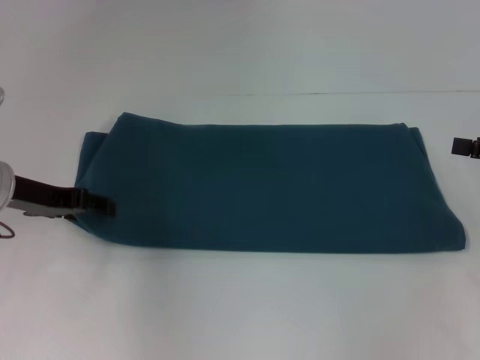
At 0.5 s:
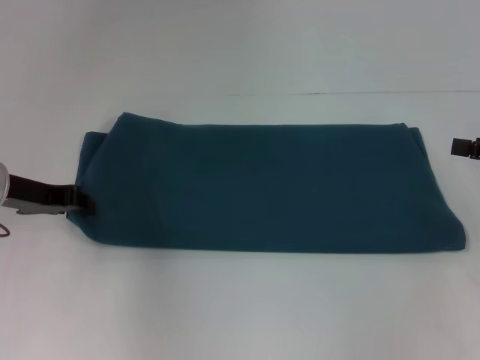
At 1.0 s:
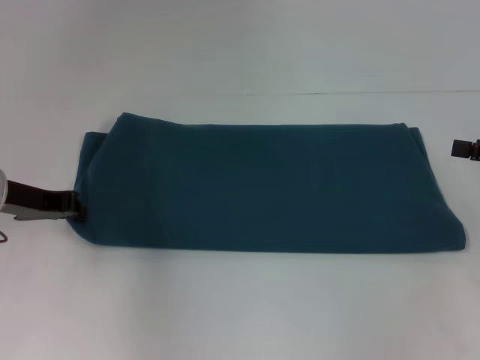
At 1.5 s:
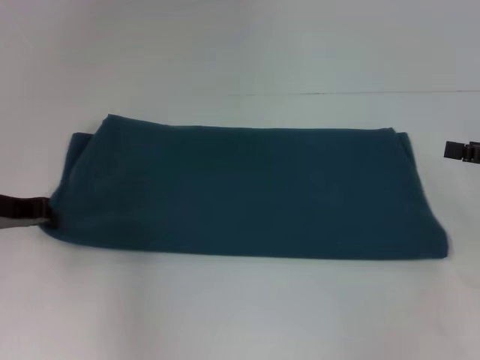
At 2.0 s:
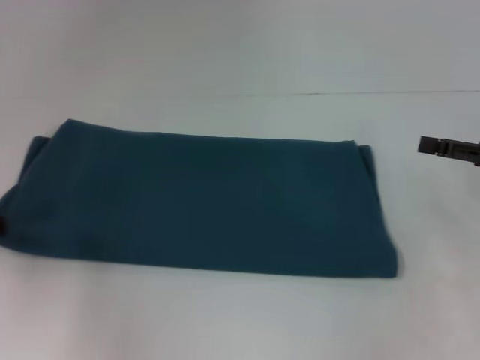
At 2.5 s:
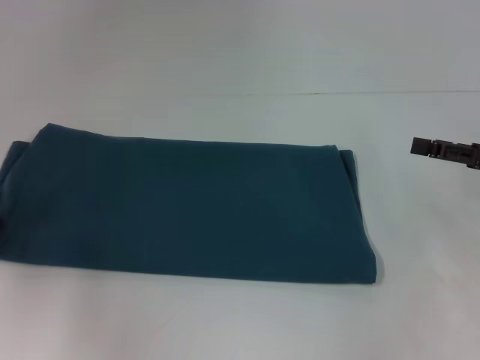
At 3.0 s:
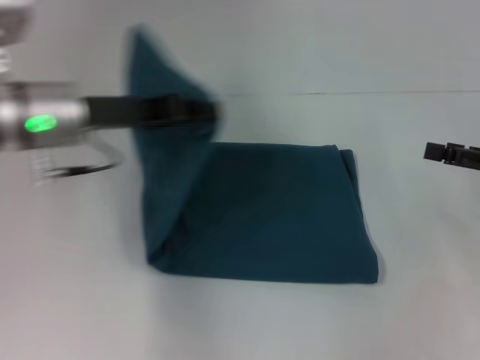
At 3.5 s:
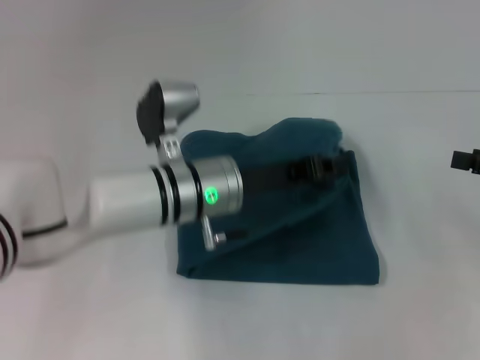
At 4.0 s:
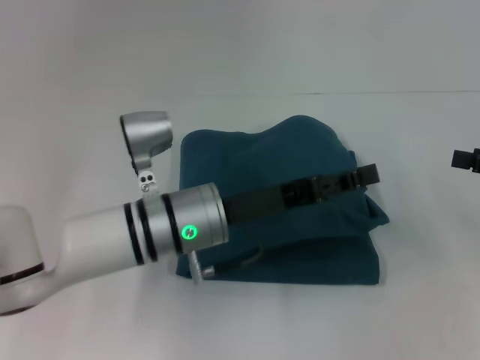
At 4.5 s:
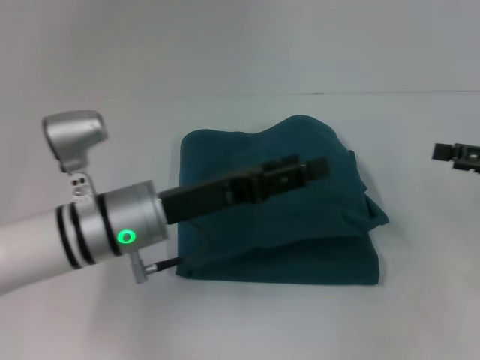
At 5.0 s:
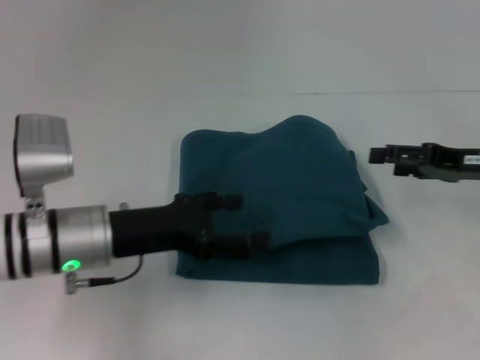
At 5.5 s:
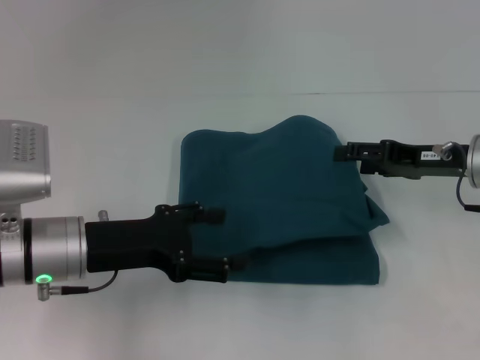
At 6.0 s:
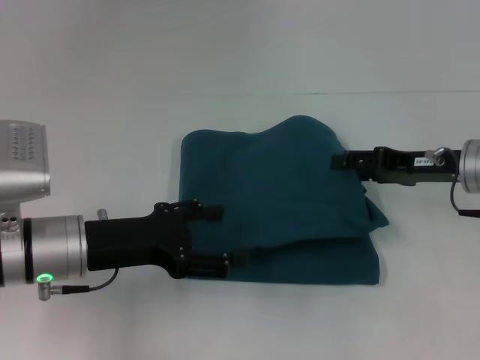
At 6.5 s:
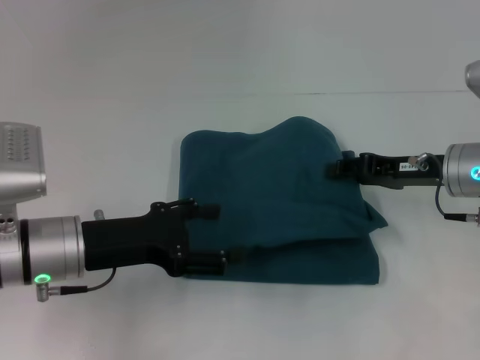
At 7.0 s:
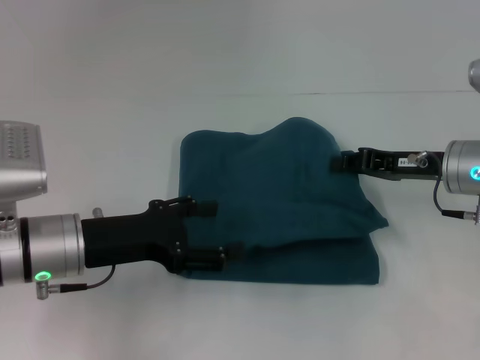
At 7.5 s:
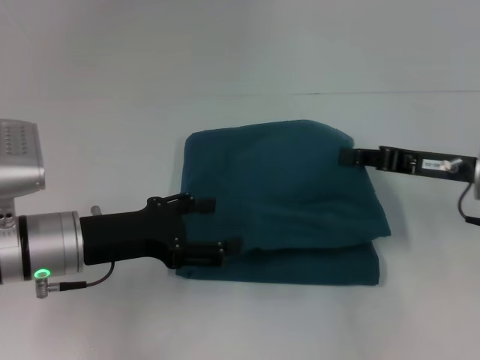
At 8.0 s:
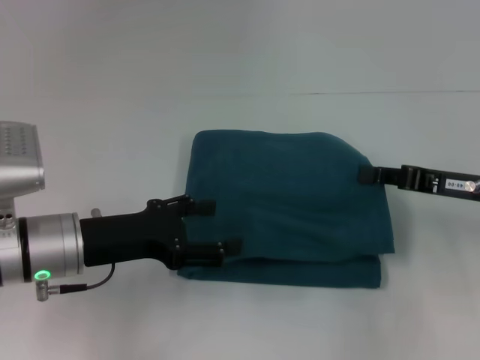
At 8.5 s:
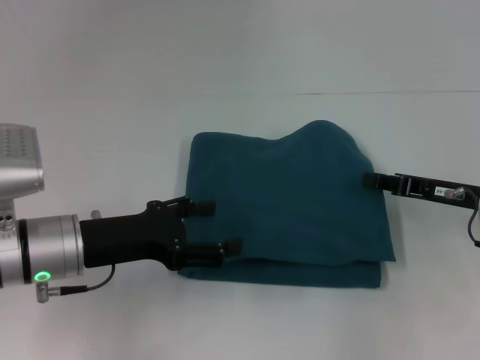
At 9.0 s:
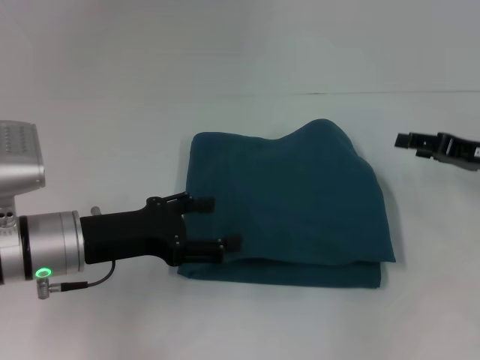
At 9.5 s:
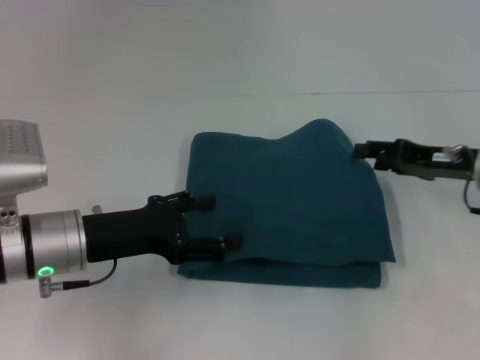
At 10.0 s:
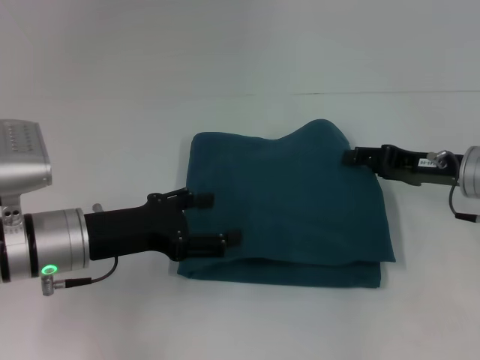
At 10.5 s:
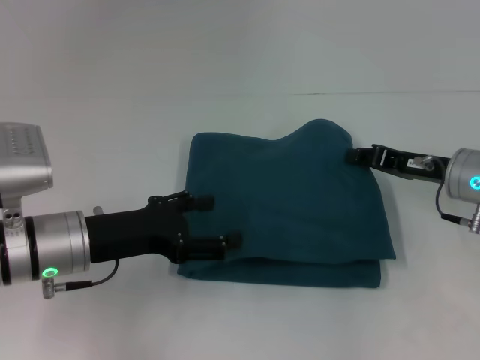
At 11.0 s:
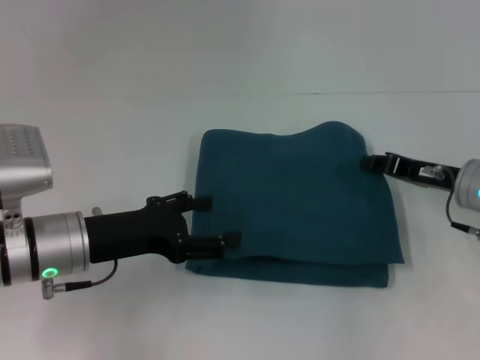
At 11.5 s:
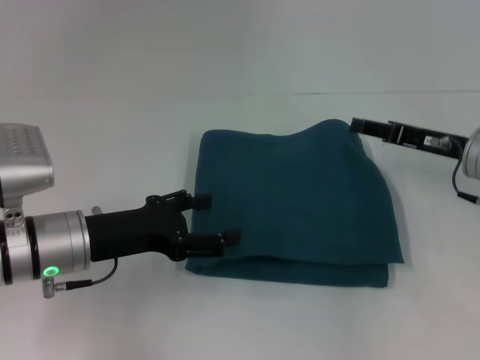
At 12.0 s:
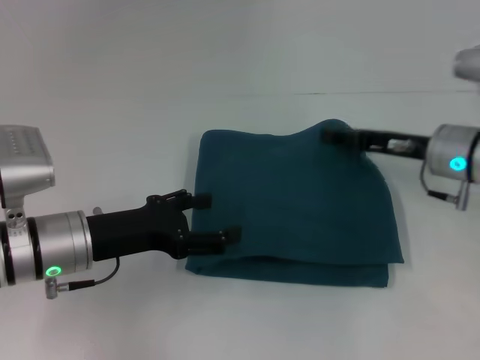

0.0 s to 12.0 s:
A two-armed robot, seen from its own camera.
Step, 0.0 to 3.5 s: Fold the clothes to the left.
0.0 to 2.0 s: The left gripper is displaced to the left by some 10 cm, and closes.
2.0 to 4.0 s: The left gripper goes approximately 30 cm to the right.
4.0 to 6.0 s: The left gripper moves to the left, about 10 cm, and opens up. Meanwhile the right gripper heads to the left and forward, covering roughly 15 cm.
6.0 to 8.0 s: The right gripper changes place by roughly 5 cm, and closes its fingers.
8.0 to 10.0 s: The right gripper opens its fingers.
10.0 to 12.0 s: The right gripper closes, then opens again.

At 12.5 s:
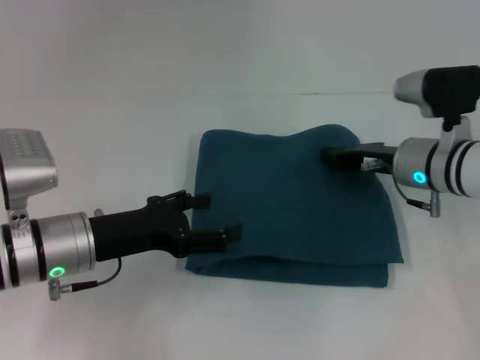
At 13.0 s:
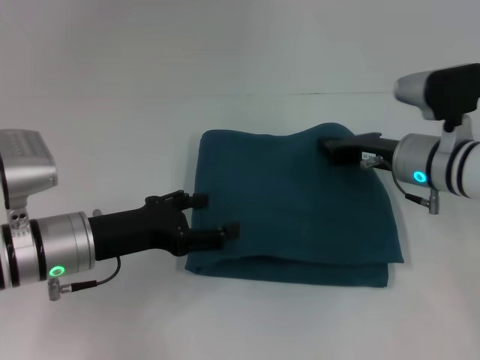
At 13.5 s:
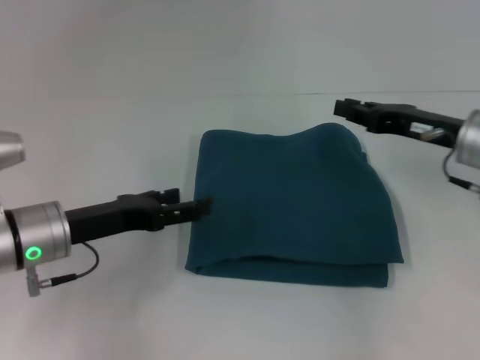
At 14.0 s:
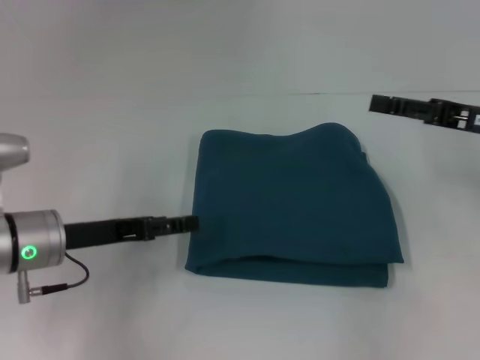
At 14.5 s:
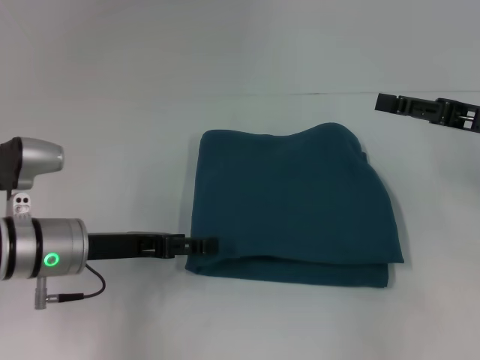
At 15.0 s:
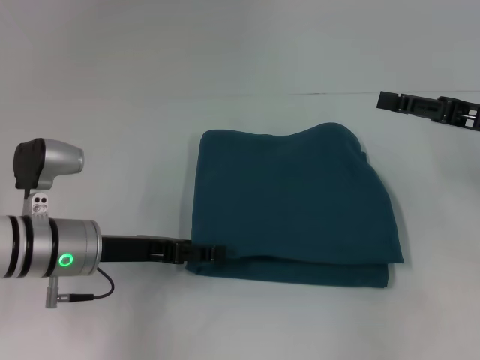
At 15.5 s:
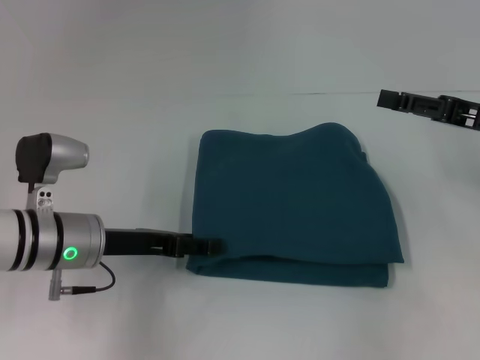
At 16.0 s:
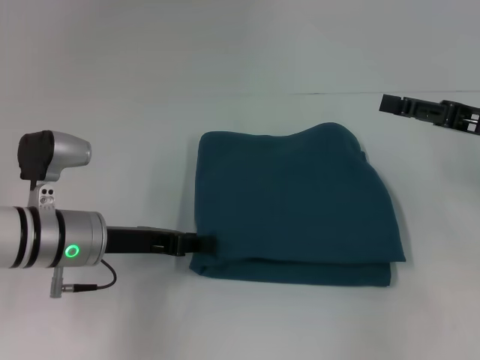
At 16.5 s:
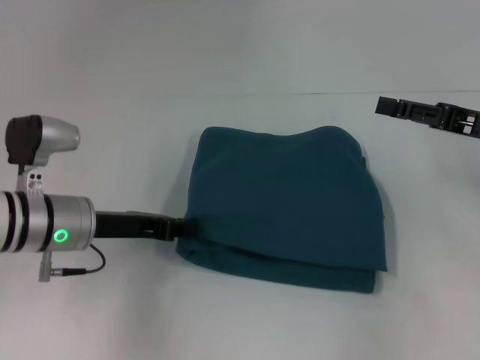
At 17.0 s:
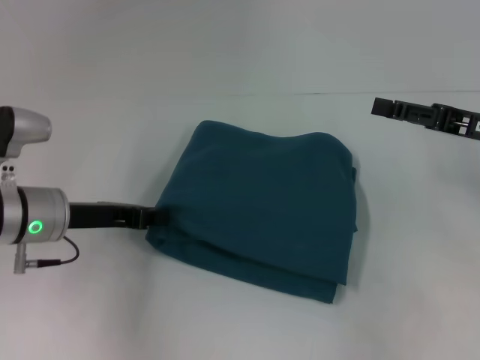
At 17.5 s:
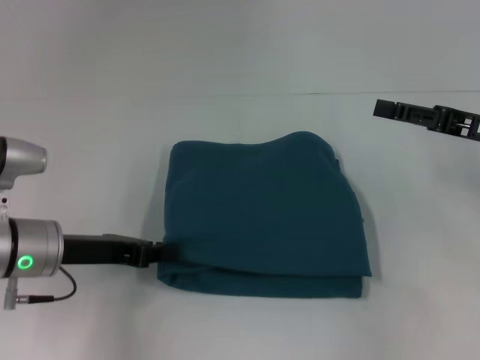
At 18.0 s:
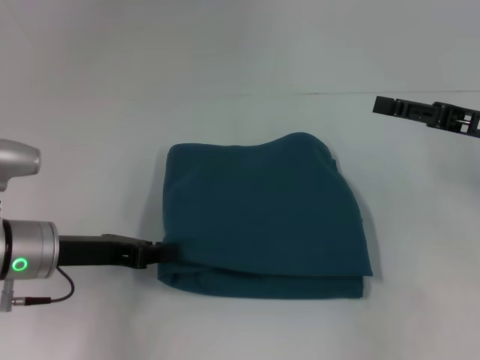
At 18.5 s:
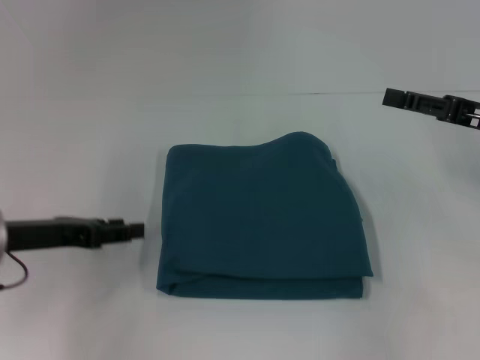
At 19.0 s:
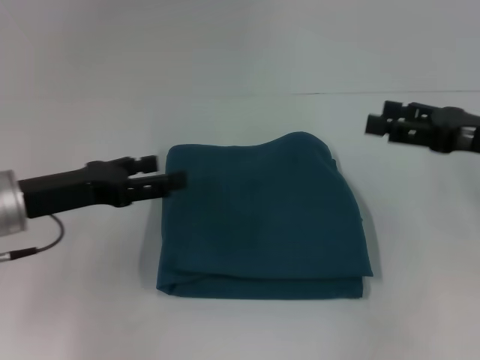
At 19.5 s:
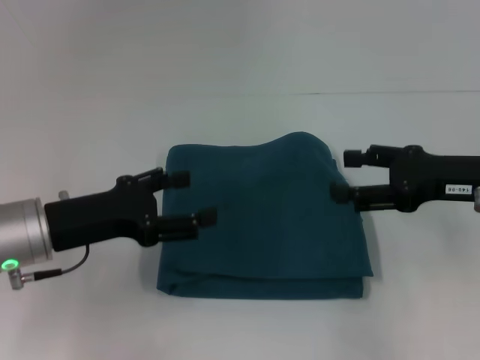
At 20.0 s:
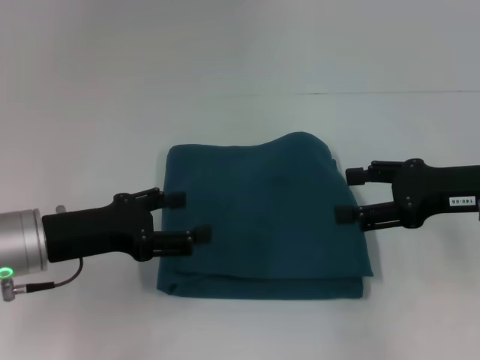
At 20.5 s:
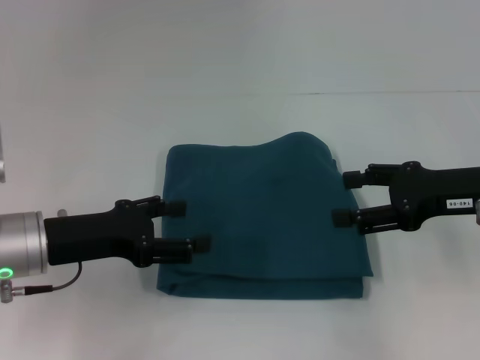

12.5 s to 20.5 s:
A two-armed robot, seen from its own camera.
12.5 to 14.5 s: The right gripper is displaced to the right and upward by approximately 15 cm, and opens up.
14.5 to 16.5 s: The left gripper closes.
16.5 to 18.5 s: The left gripper moves to the left, roughly 5 cm.
18.5 to 20.5 s: The left gripper opens; the right gripper shifts by about 5 cm.

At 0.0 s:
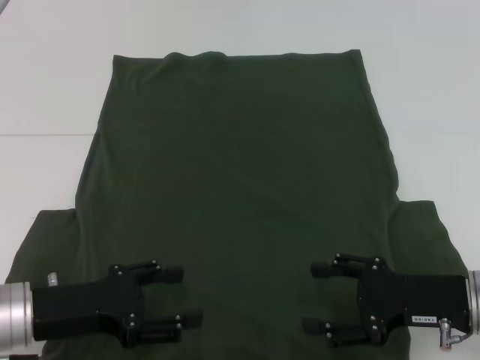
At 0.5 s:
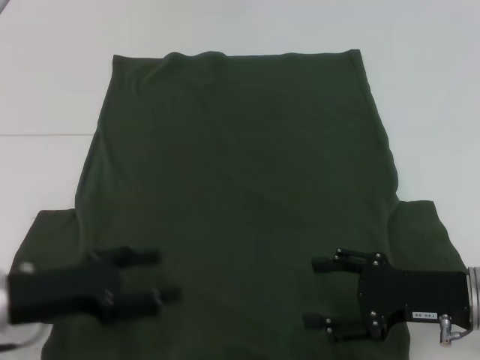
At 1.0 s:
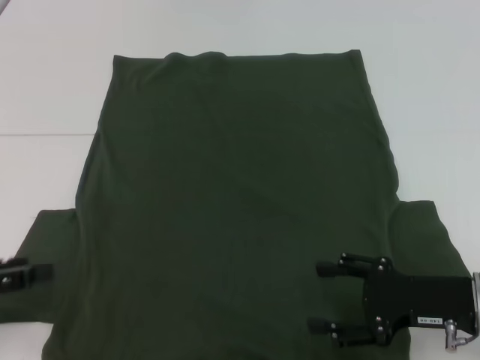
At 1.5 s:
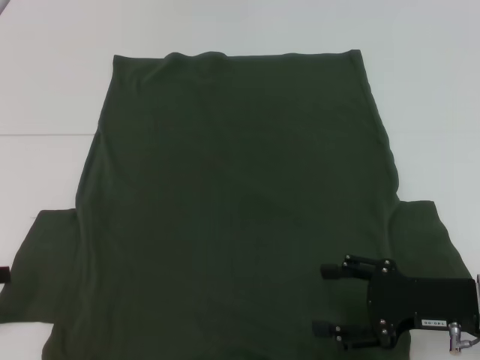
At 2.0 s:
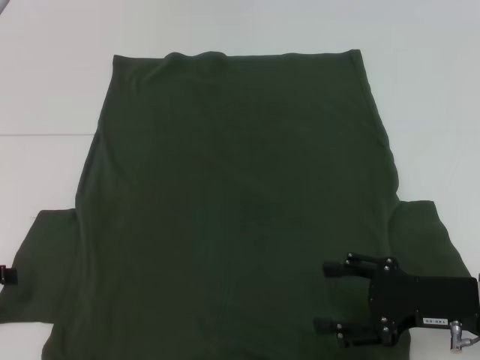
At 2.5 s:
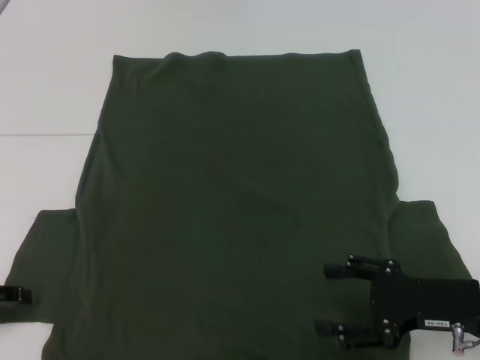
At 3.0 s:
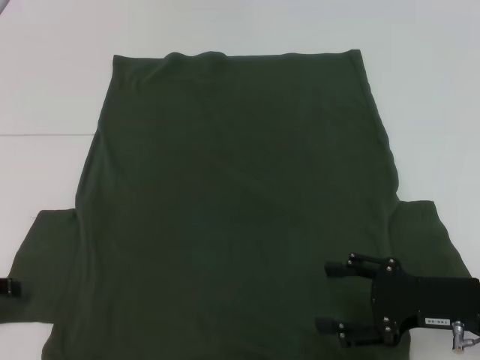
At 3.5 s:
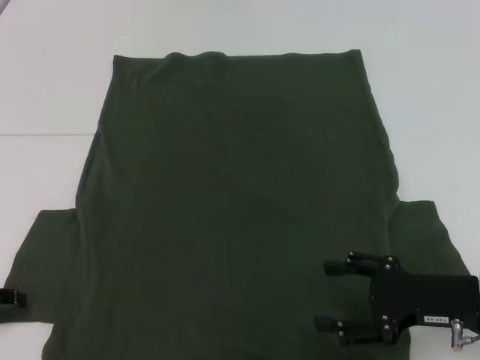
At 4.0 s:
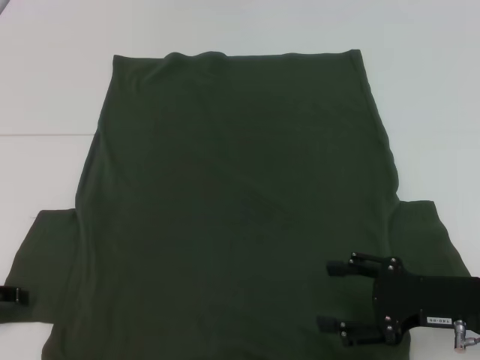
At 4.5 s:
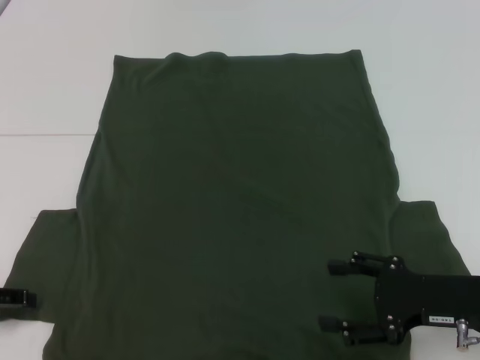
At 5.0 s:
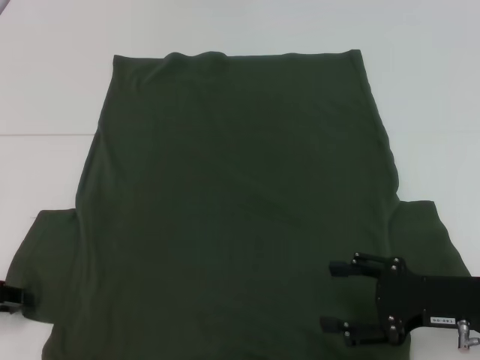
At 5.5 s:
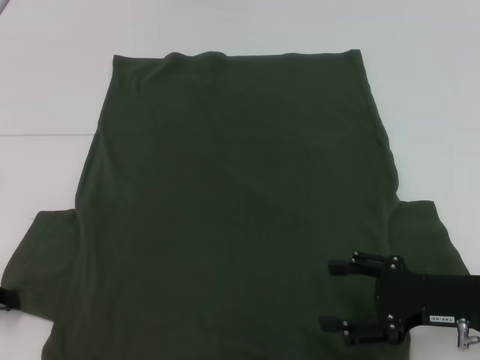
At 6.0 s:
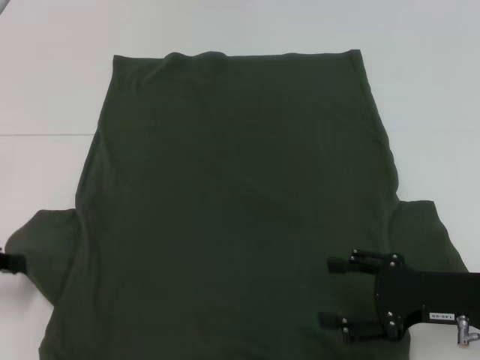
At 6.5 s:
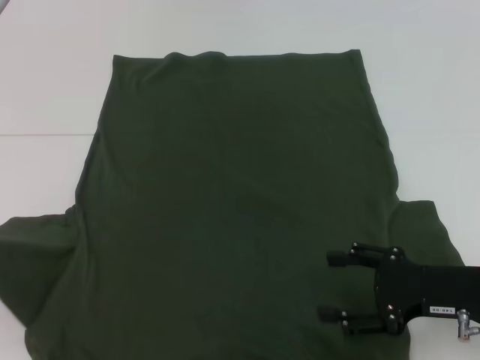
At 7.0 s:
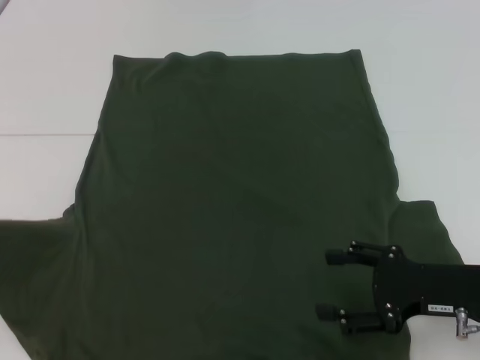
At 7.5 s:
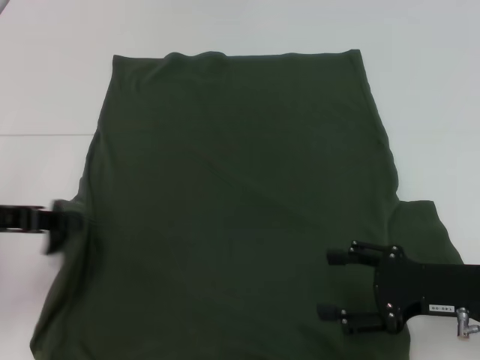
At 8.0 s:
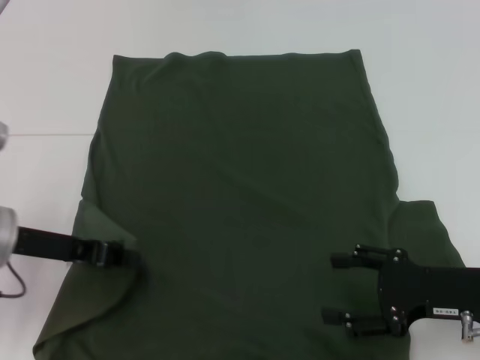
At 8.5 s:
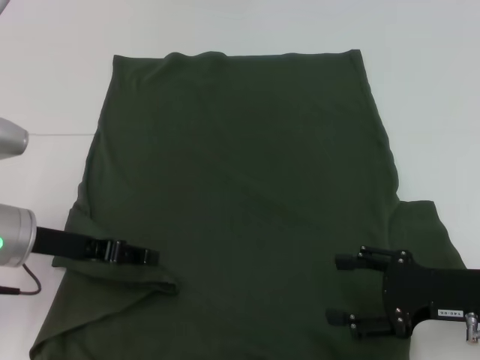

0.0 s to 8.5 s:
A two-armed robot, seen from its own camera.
0.0 to 2.0 s: The left gripper shifts roughly 15 cm to the left.
4.0 to 6.5 s: The left gripper heads upward, covering approximately 5 cm, and closes.
6.5 to 8.5 s: The left gripper shifts about 15 cm to the right.
